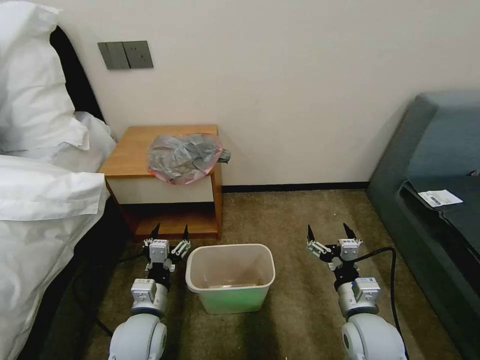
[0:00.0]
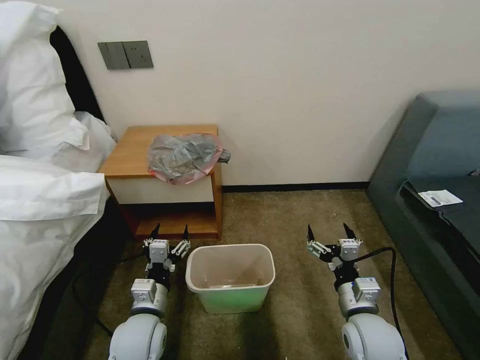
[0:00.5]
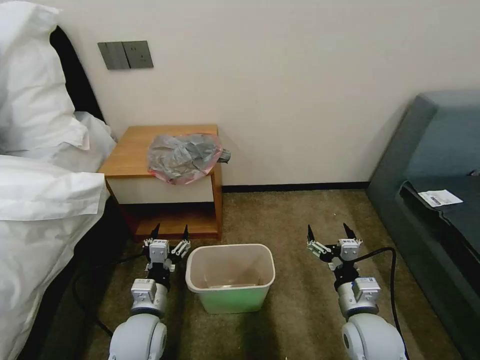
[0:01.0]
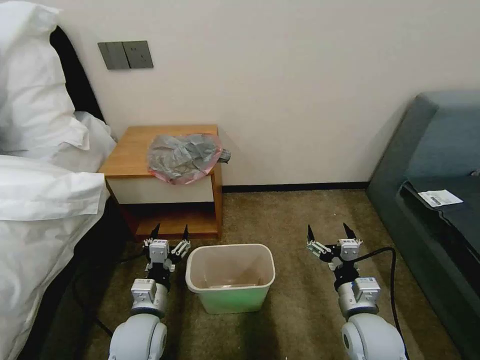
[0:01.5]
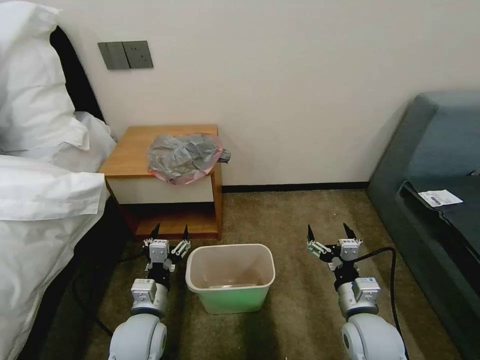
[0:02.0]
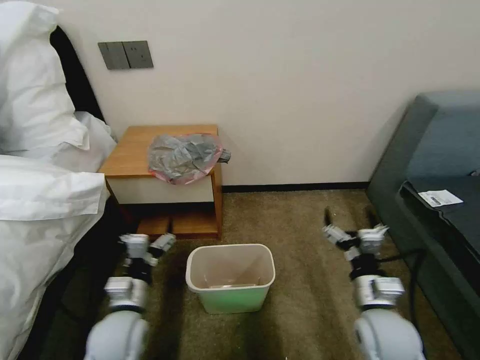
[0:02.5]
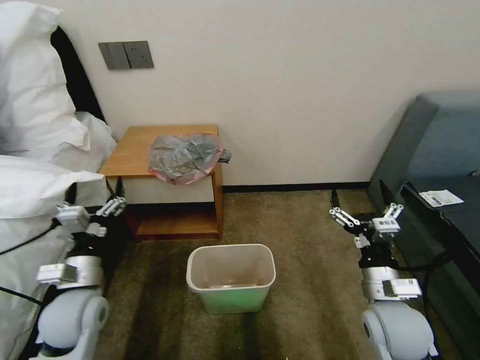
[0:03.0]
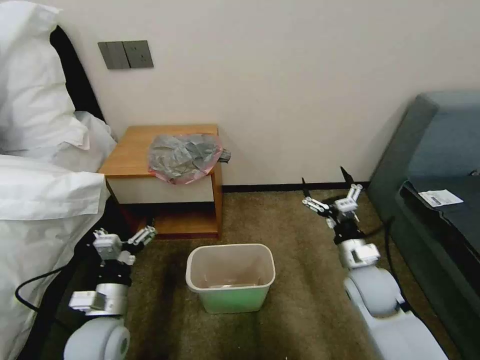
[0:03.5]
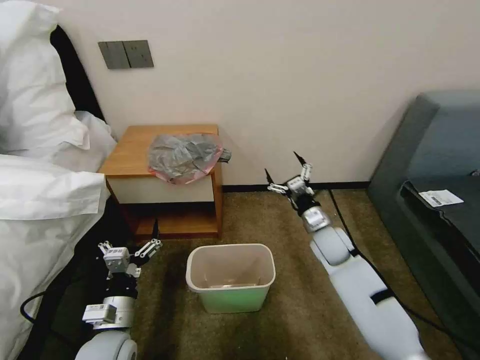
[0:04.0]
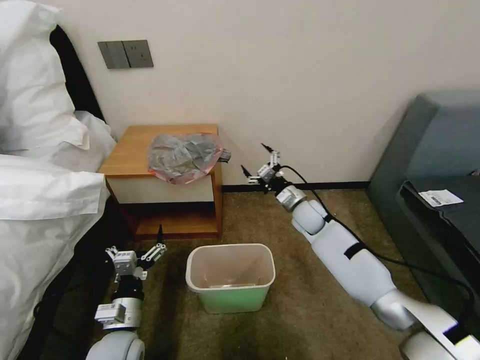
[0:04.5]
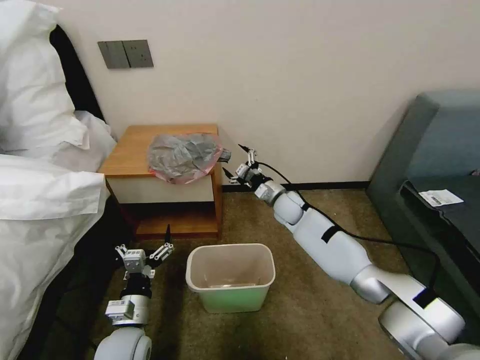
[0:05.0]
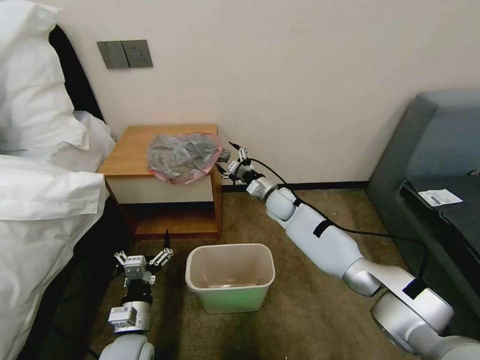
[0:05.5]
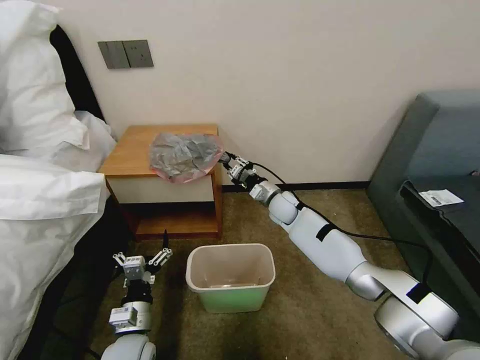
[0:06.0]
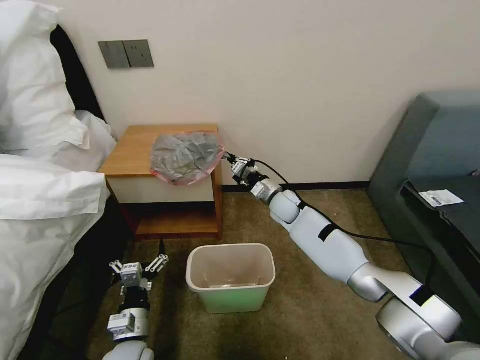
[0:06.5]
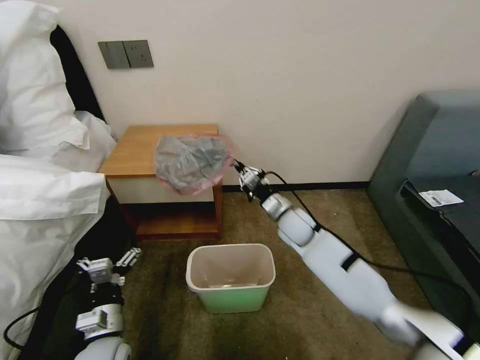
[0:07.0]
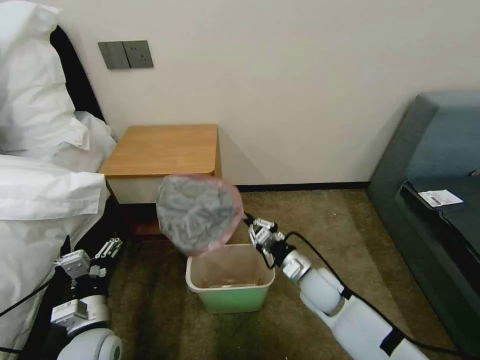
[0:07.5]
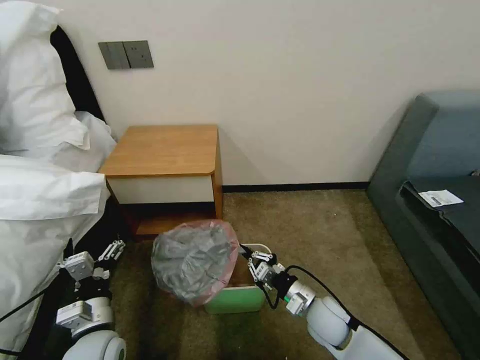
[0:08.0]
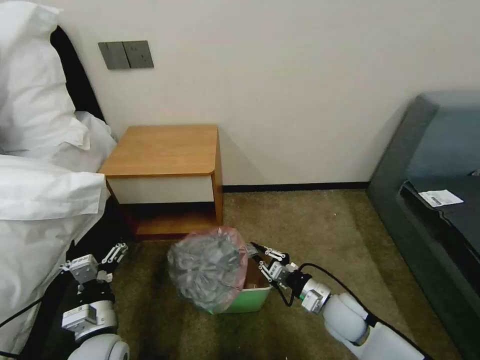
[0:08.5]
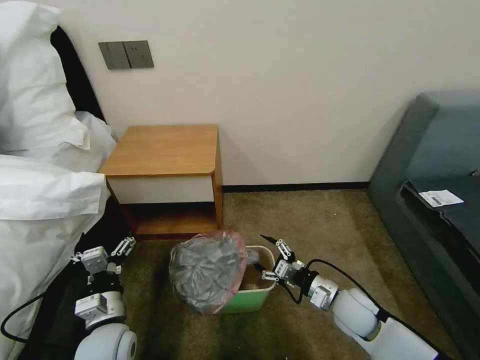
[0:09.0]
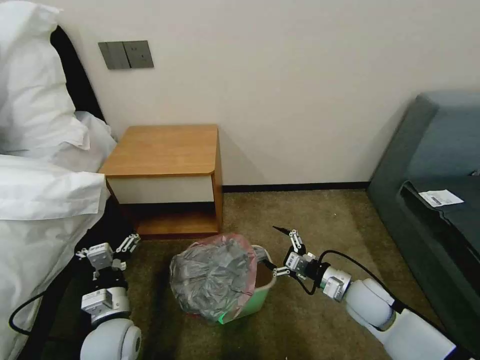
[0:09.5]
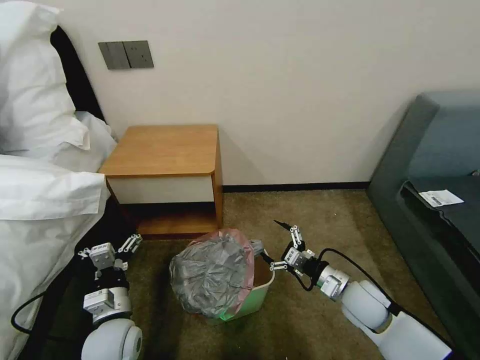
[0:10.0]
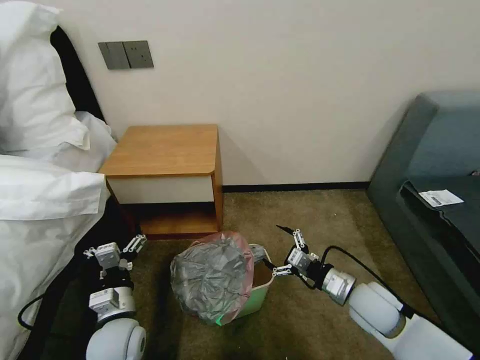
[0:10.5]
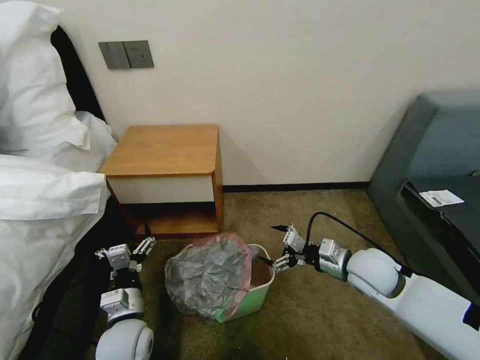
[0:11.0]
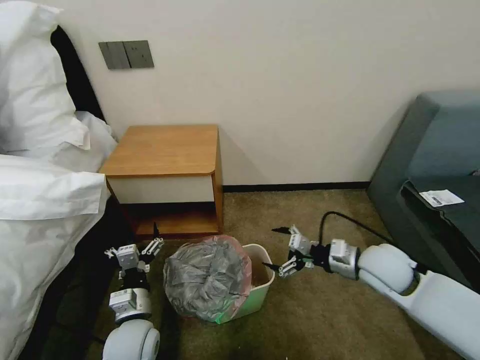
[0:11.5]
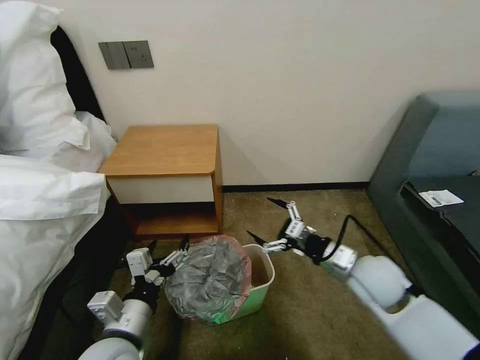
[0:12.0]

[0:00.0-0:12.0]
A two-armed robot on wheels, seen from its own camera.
Task of the whole recording: Pick up the garbage bag from the table and place it over the trash can.
0:02.0 to 0:04.0: The right gripper is displaced forward by about 20 cm. The left gripper is displaced to the left by some 5 cm.
0:04.0 to 0:06.0: The left gripper shifts by about 5 cm. Meanwhile the right gripper shifts some 15 cm forward and to the left, and closes its fingers.
0:06.0 to 0:08.0: The right gripper heads backward, covering about 30 cm; the left gripper shifts by about 5 cm.
0:08.0 to 0:10.0: The right gripper moves to the right, approximately 10 cm, and opens up.
0:10.0 to 0:12.0: Both grippers travel together upward, approximately 10 cm.

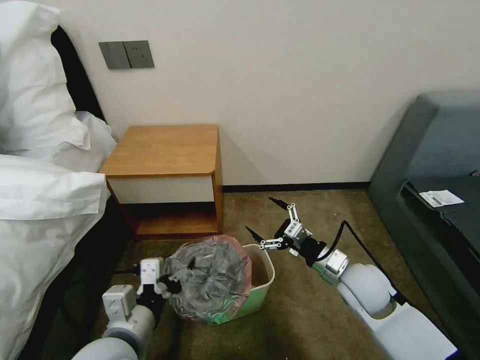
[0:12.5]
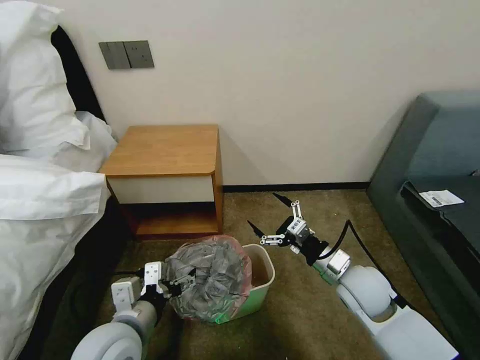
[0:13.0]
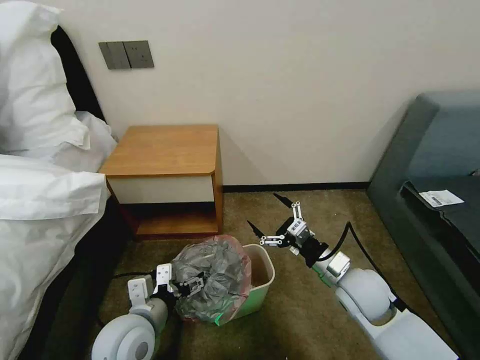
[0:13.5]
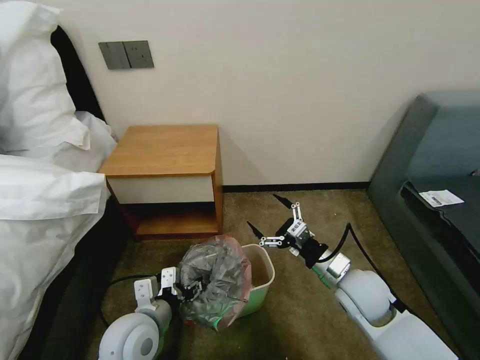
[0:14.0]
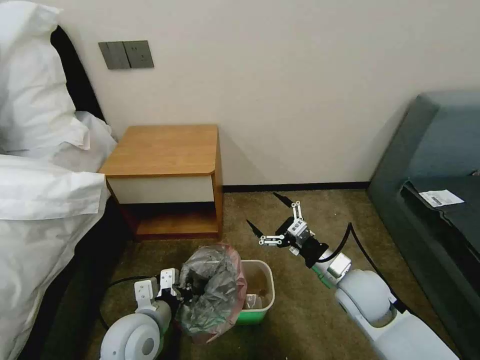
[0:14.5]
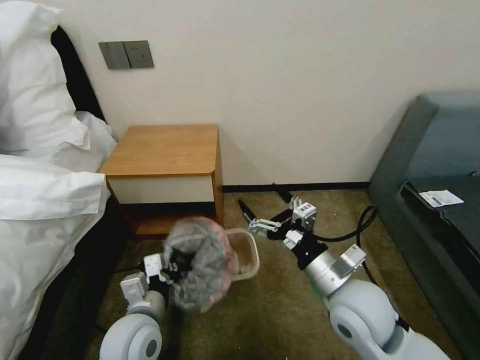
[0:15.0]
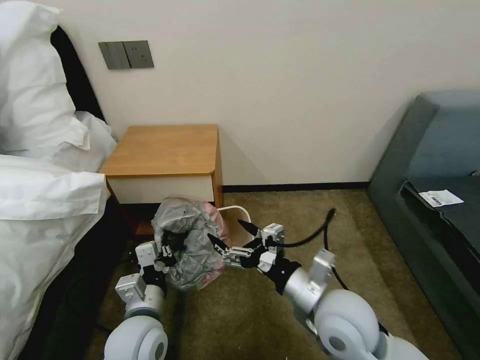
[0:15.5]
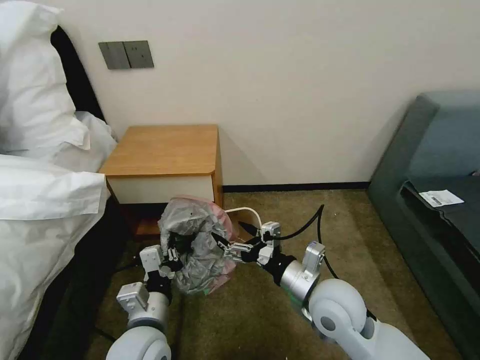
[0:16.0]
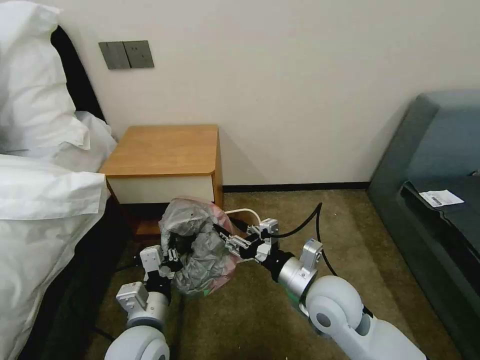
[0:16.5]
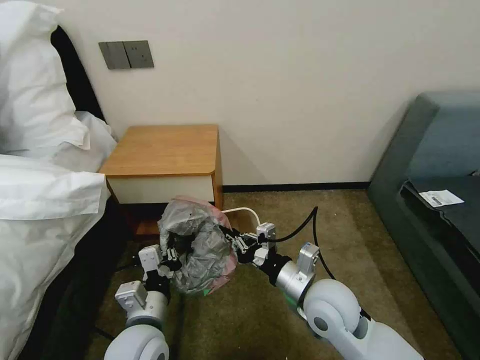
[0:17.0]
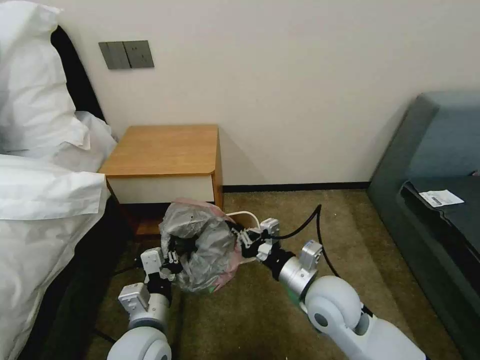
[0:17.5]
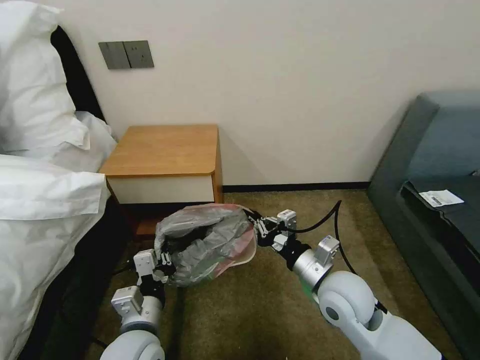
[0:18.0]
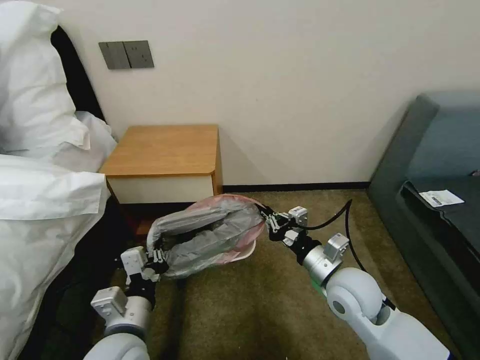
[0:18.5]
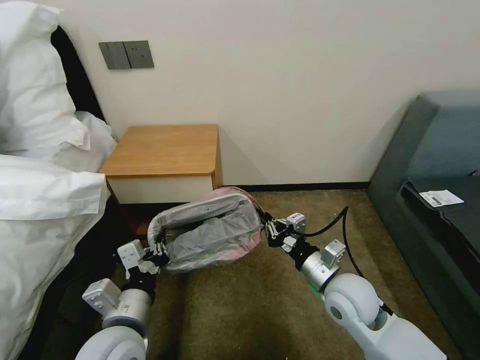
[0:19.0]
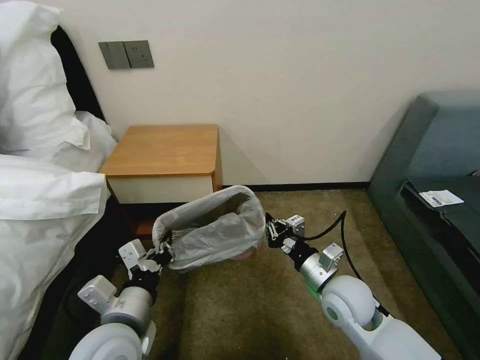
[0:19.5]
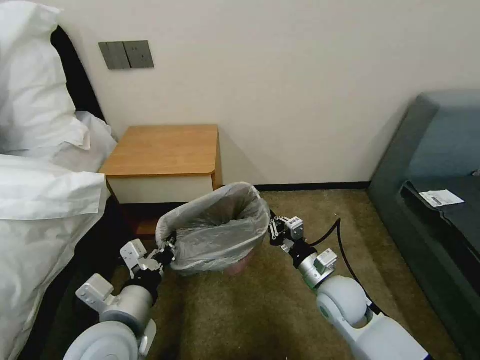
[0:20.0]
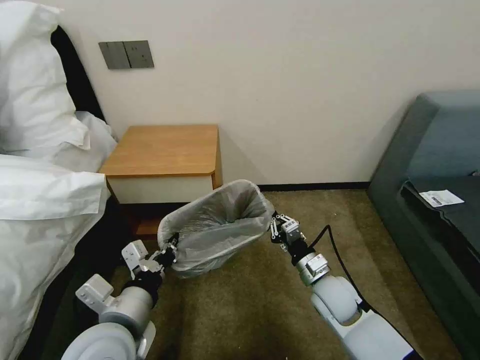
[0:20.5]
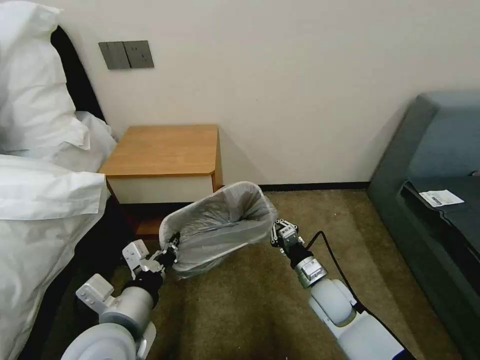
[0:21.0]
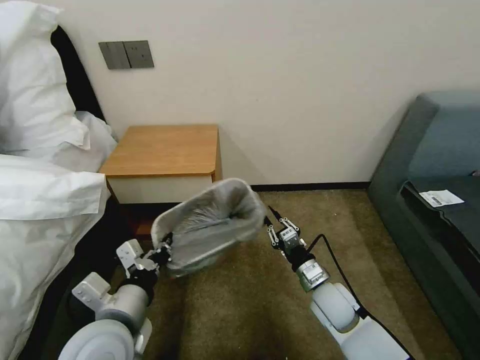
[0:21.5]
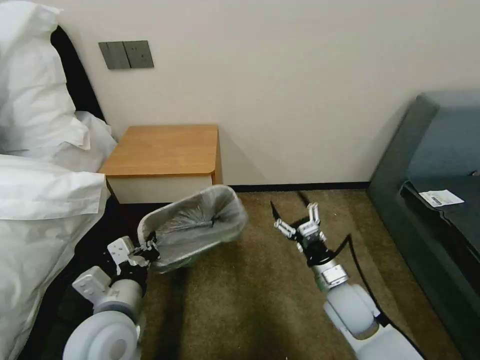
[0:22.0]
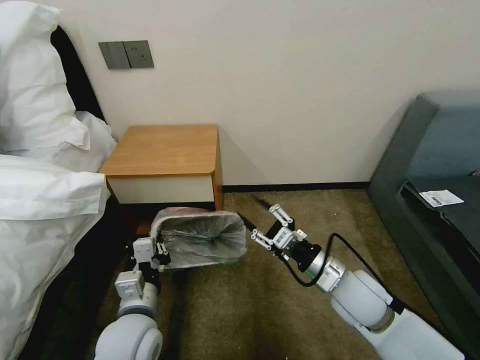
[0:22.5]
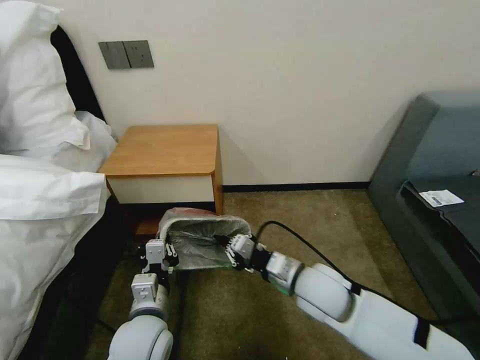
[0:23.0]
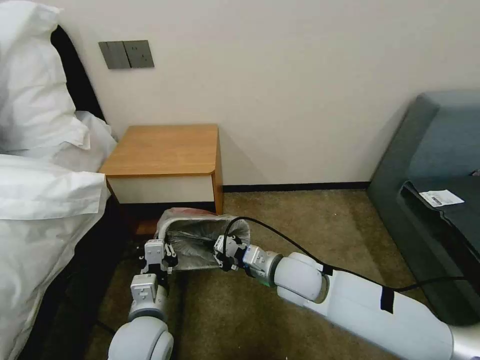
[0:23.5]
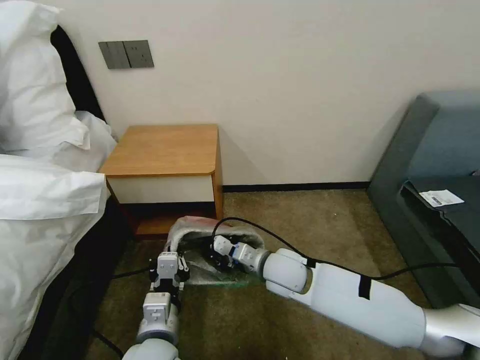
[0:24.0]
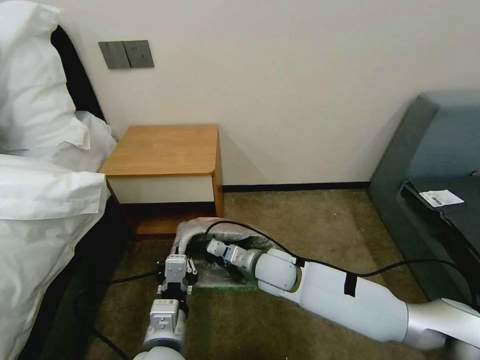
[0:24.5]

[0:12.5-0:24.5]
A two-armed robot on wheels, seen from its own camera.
Task of the whole recording: Pick up the garbage bag from the table and place it over the trash can.
0:12.5 to 0:14.5: The left gripper goes about 10 cm downward and forward, and closes up.
0:14.5 to 0:16.5: The right gripper travels to the left by approximately 10 cm, and closes.
0:16.5 to 0:18.5: The right gripper shifts by about 5 cm, and closes its fingers.
0:18.5 to 0:20.5: The left gripper moves upward, some 5 cm. The right gripper is displaced downward by about 10 cm.
0:20.5 to 0:22.5: The right gripper is displaced upward by some 10 cm, and opens, while the left gripper goes some 5 cm downward.
0:22.5 to 0:24.5: The left gripper travels to the right and backward by about 10 cm; the right gripper heads to the left and forward, covering approximately 15 cm, and closes its fingers.

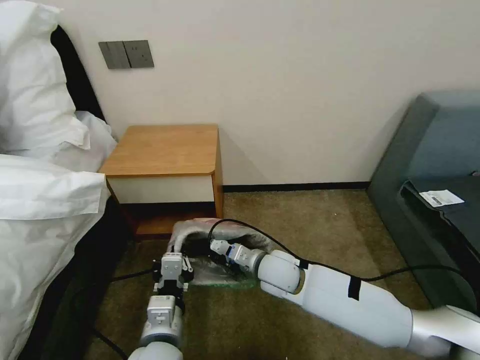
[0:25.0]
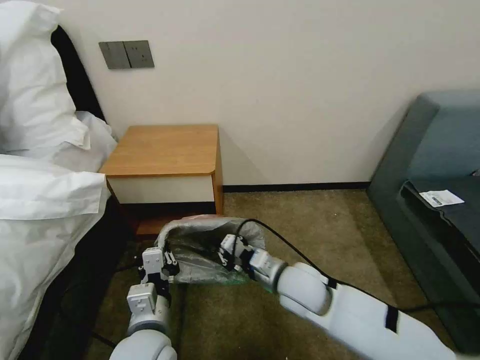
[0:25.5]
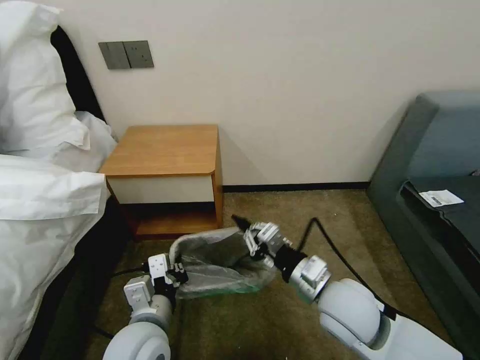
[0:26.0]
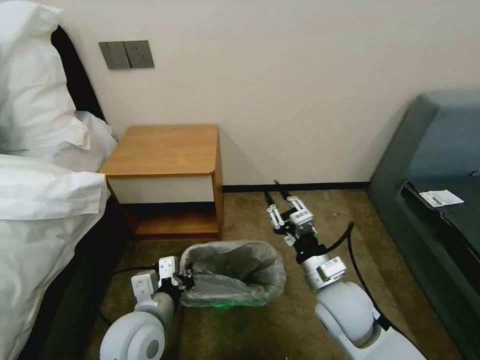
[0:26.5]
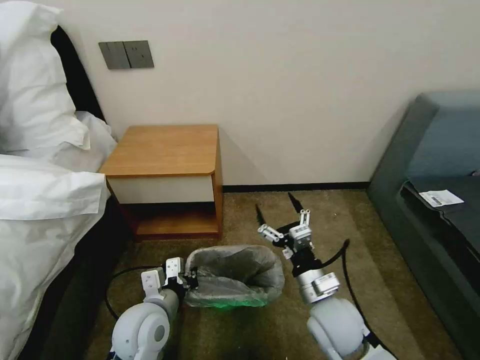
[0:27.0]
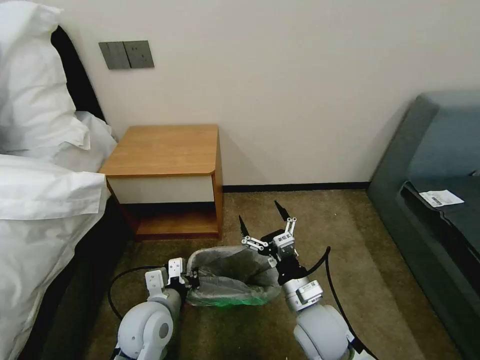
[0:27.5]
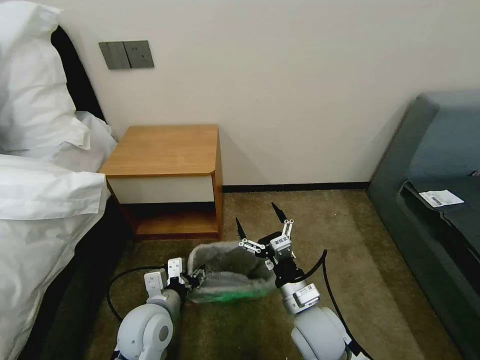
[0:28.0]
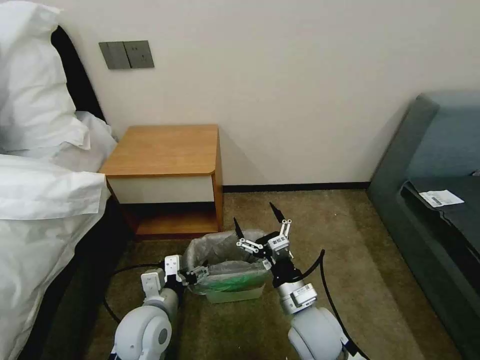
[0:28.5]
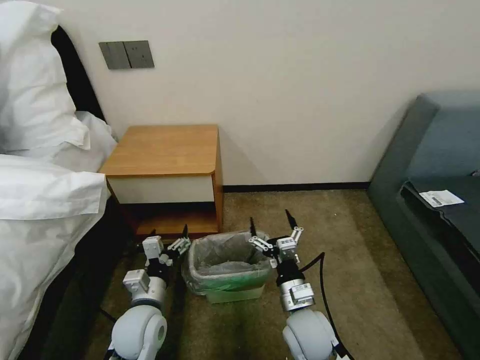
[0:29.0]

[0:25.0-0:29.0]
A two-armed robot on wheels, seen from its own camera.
Task of the whole recording: Pick up the garbage bag from the table and place it over the trash can.
0:25.0 to 0:27.0: The left gripper is displaced forward and to the left by about 10 cm. The right gripper shifts some 15 cm backward and to the right, and opens up.
0:27.0 to 0:29.0: The left gripper opens its fingers; the right gripper shifts by some 5 cm.
